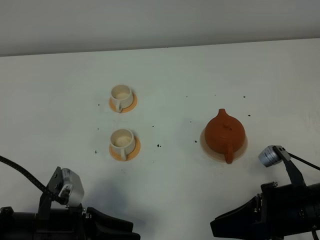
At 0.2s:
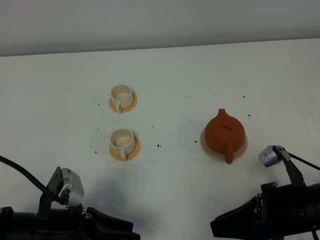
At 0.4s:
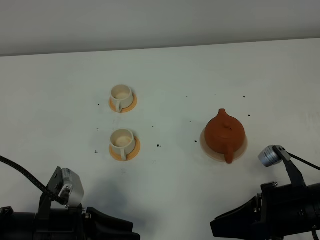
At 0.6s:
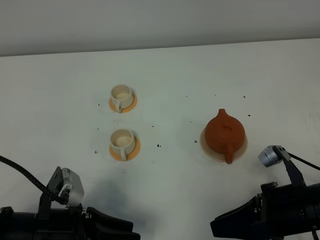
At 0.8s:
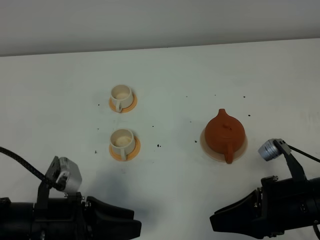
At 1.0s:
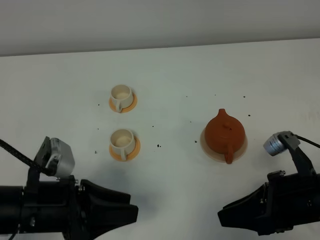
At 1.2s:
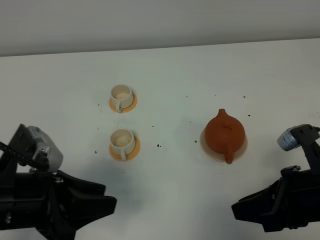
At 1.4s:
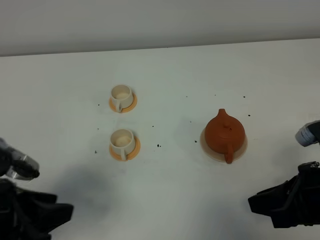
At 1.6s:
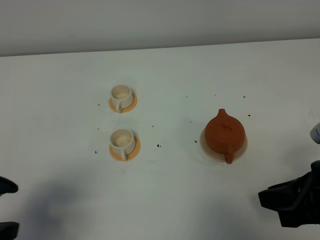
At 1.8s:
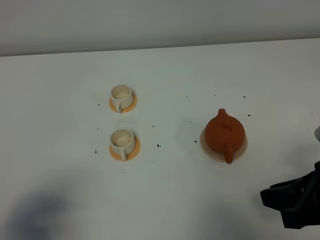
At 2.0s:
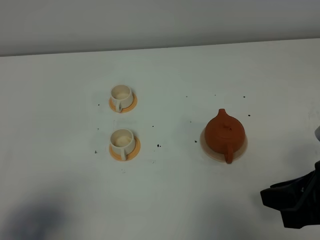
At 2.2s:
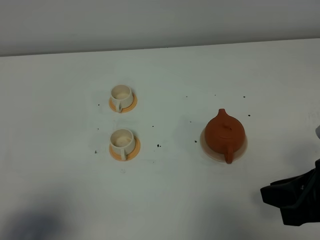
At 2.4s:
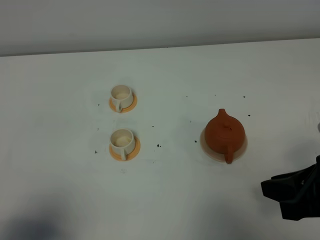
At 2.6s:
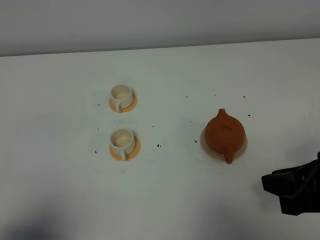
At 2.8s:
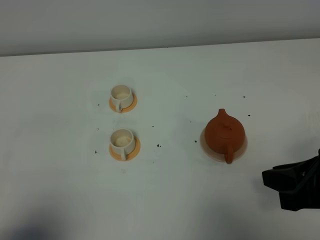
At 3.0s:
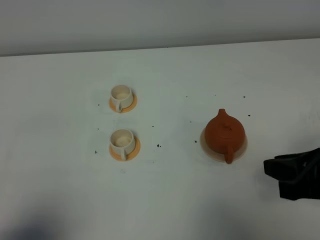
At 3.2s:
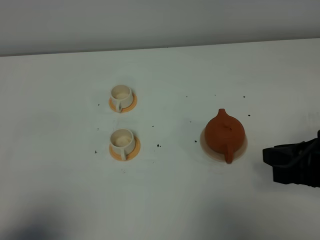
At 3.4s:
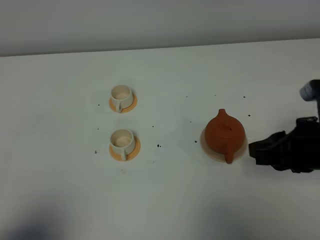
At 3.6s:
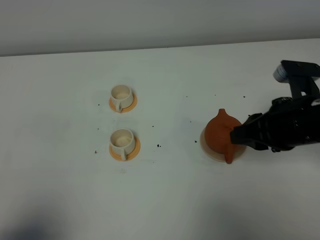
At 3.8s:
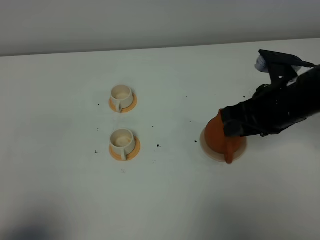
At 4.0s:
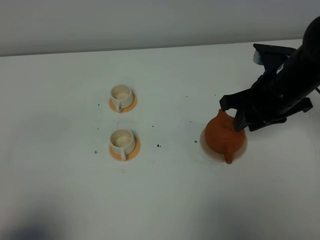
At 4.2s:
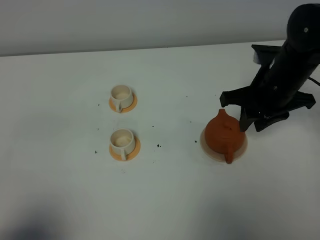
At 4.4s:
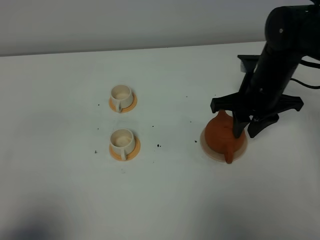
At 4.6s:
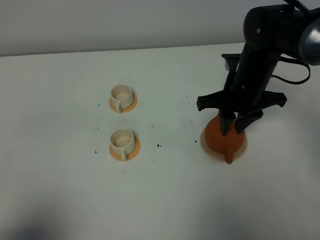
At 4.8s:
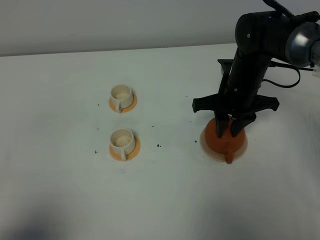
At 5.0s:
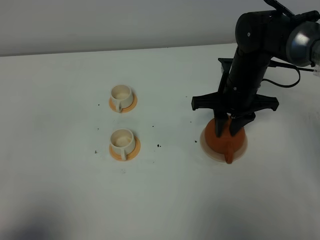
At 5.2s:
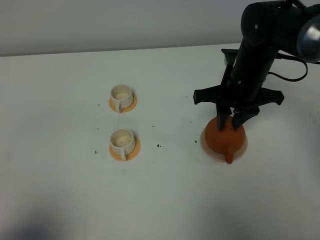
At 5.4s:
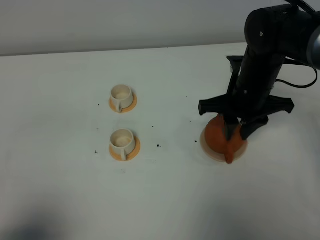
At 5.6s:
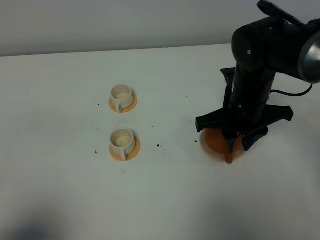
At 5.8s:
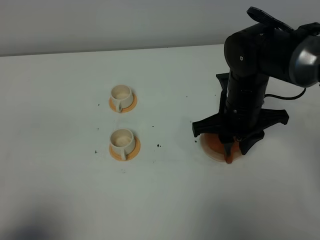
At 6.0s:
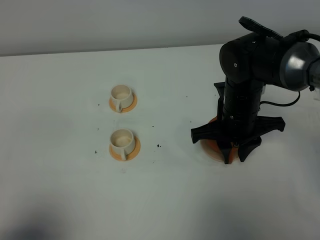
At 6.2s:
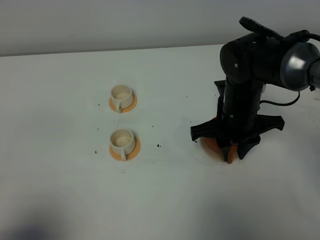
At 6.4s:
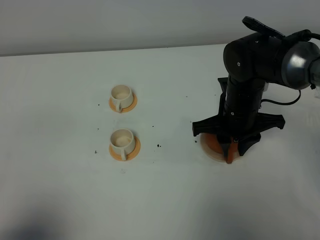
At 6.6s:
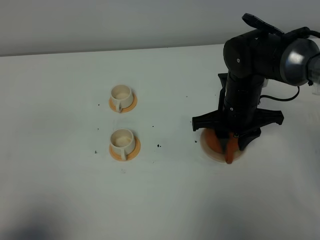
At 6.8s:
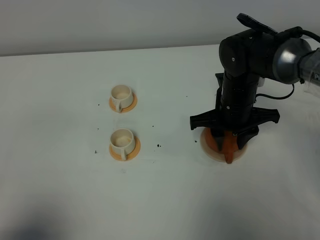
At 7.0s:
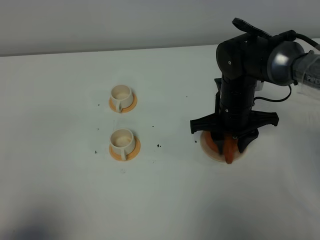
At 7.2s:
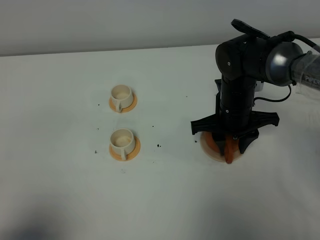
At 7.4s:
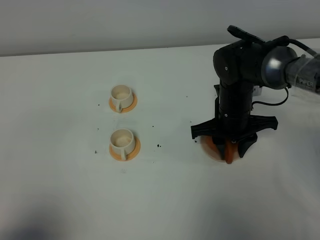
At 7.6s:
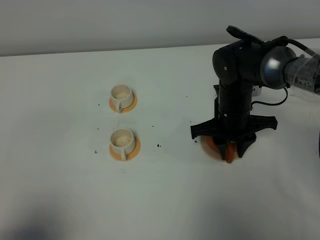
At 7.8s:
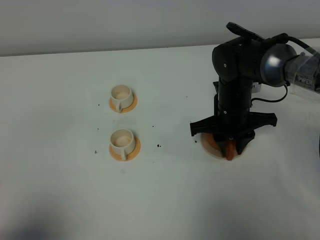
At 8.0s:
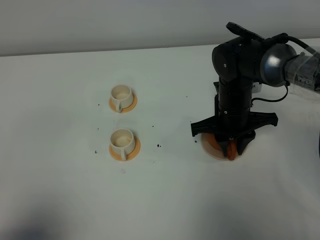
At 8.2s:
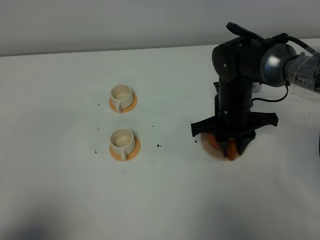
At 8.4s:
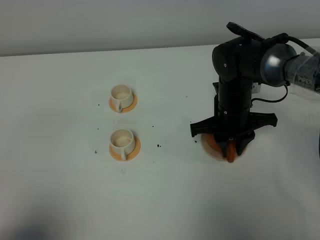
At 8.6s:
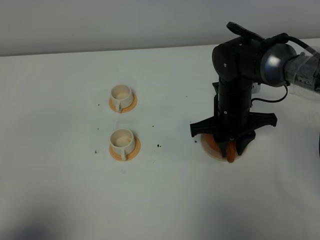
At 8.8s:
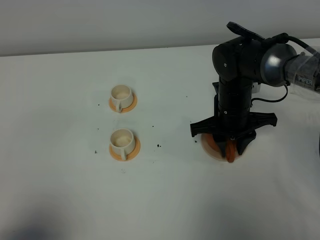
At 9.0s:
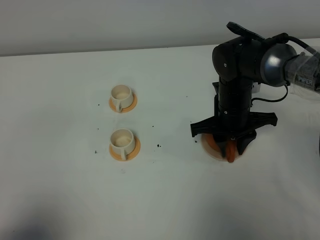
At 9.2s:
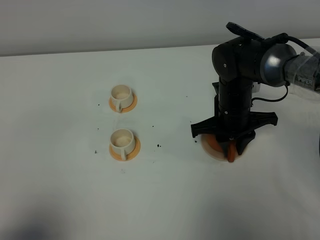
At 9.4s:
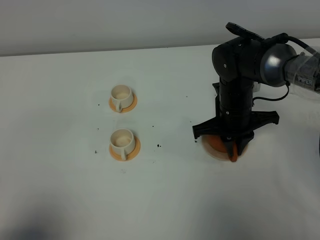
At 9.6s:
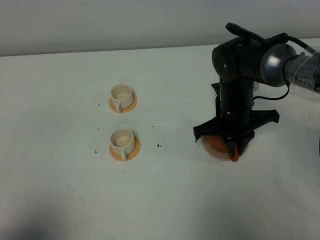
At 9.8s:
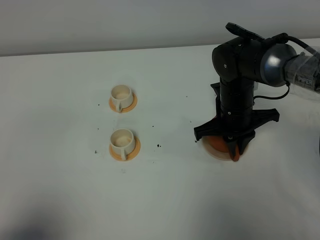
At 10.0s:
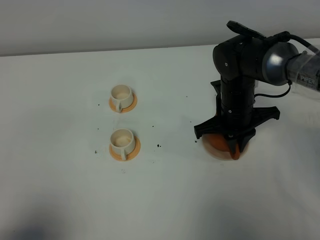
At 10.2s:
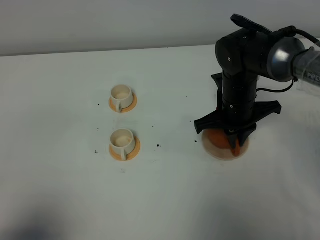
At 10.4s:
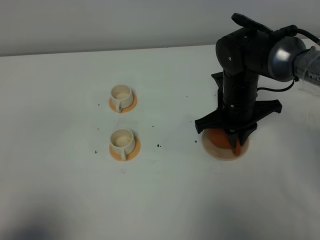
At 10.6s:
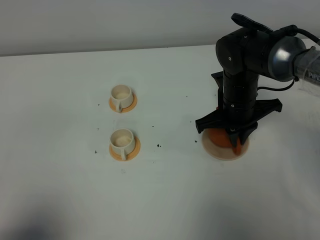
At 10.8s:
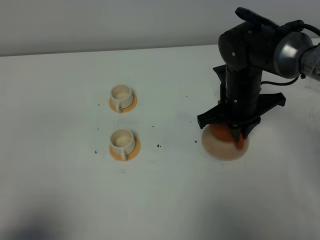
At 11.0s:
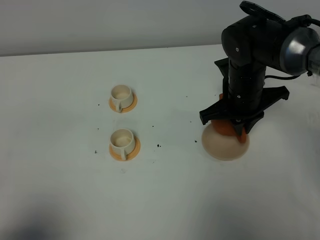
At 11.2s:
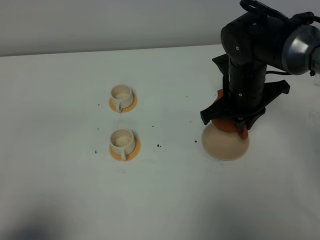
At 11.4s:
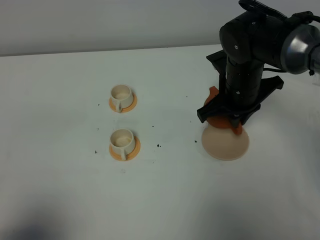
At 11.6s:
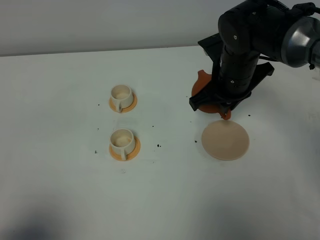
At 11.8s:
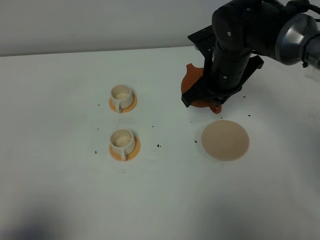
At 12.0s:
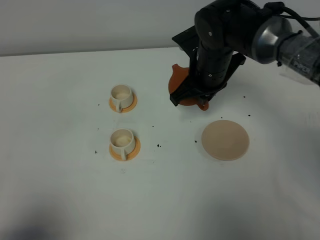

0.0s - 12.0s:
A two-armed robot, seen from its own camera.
Task of the whole recording: grasp the brown teapot and pour the tea into the two white teacups one by one, put the brown teapot back in its original place.
Step, 0.0s - 10.0s: Pick up the teapot with the right gripper.
0.0s - 1.6s: The left gripper travels upward and to the left by about 15 cm. The right gripper travels upward by approximately 5 cm.
1.6s - 3.0s: The left gripper goes roughly 10 cm backward.
3.0s - 4.4s: The right gripper heads forward and to the left, covering approximately 20 cm.
4.4s - 6.0s: The right gripper ends up some 5 cm from where it was.
6.0s - 7.6s: The right gripper changes place by roughly 5 cm.
7.6s - 9.0s: Both grippers stay put.
9.0s - 10.4s: The right gripper closes up.
10.4s - 12.0s: The right gripper moves to the left, approximately 5 cm.

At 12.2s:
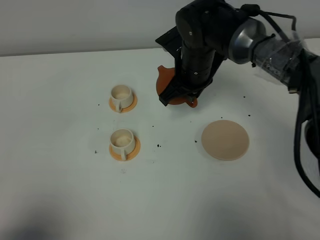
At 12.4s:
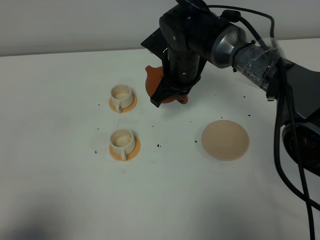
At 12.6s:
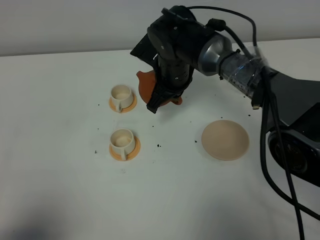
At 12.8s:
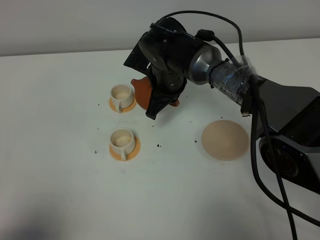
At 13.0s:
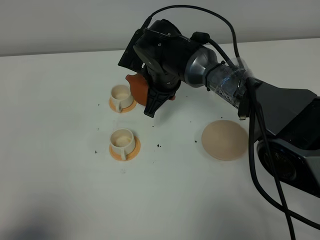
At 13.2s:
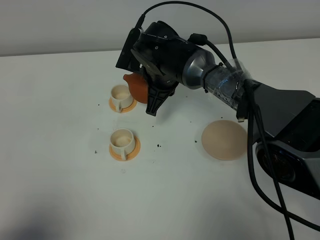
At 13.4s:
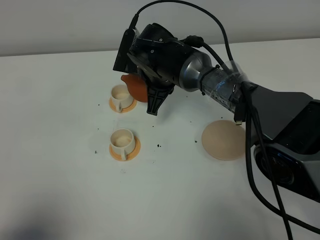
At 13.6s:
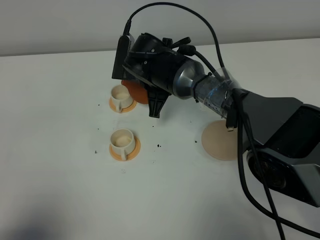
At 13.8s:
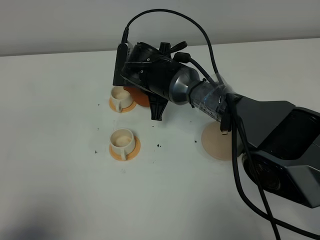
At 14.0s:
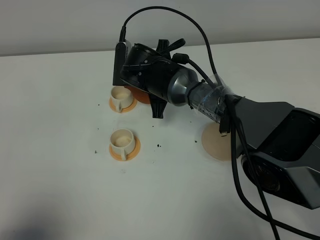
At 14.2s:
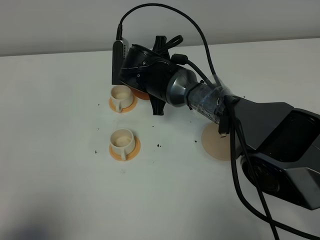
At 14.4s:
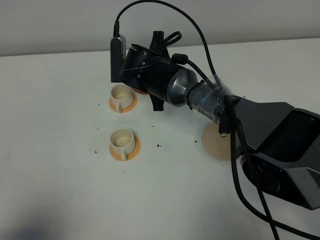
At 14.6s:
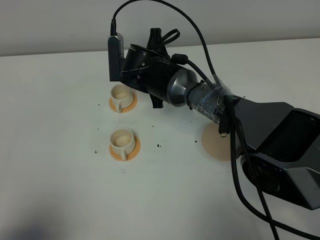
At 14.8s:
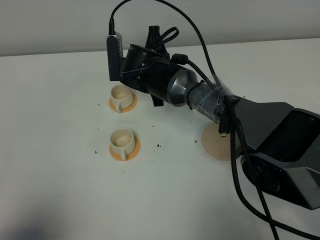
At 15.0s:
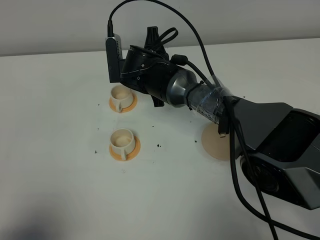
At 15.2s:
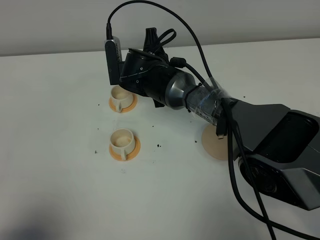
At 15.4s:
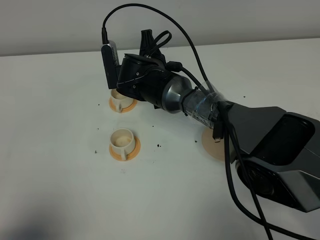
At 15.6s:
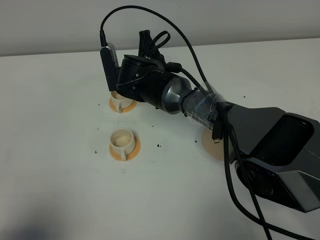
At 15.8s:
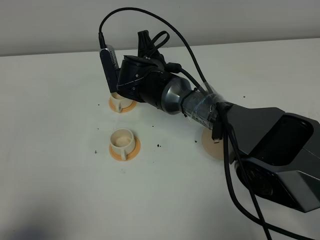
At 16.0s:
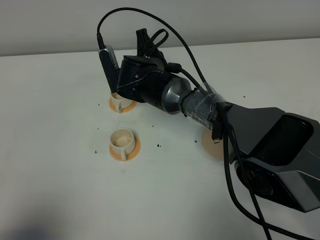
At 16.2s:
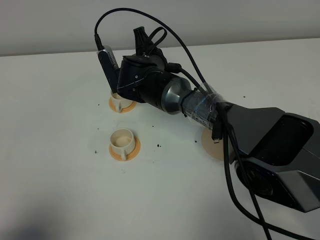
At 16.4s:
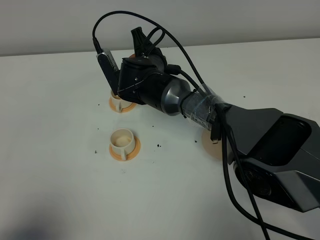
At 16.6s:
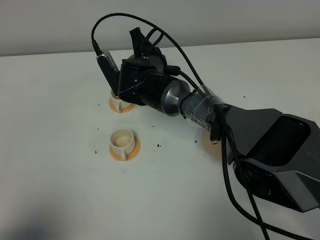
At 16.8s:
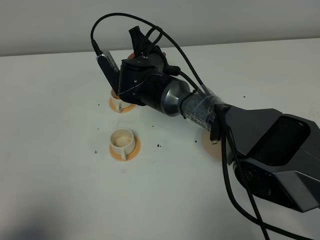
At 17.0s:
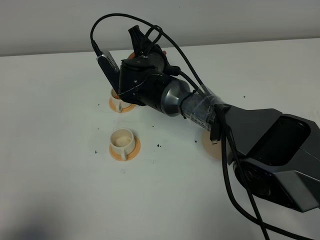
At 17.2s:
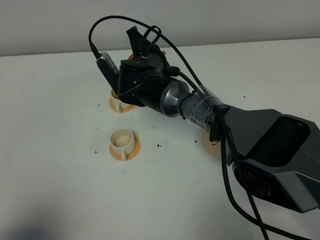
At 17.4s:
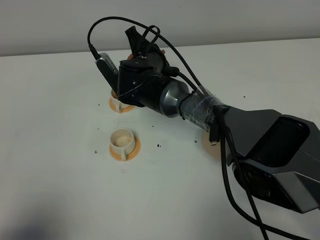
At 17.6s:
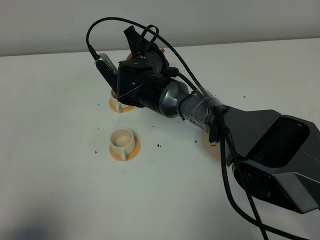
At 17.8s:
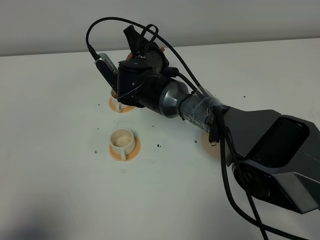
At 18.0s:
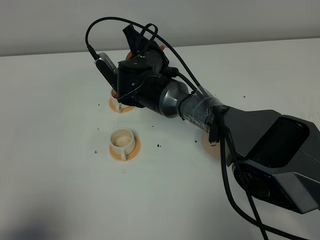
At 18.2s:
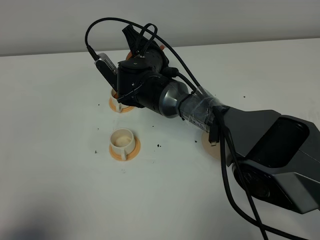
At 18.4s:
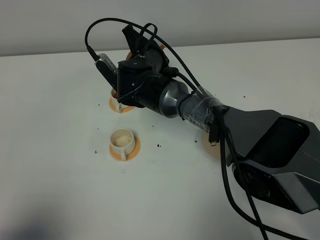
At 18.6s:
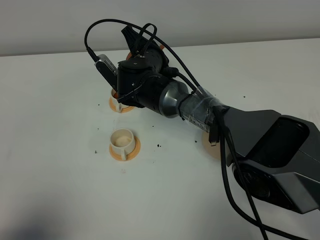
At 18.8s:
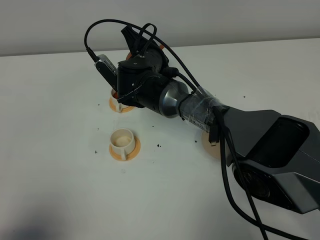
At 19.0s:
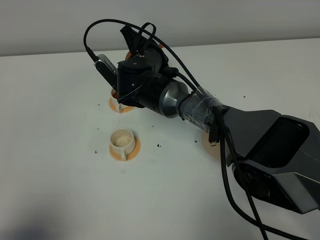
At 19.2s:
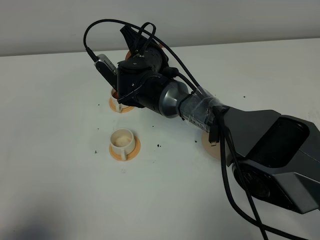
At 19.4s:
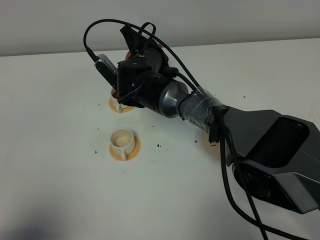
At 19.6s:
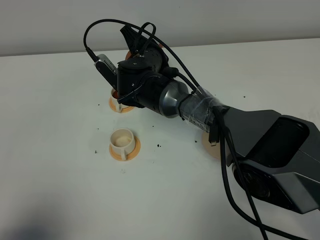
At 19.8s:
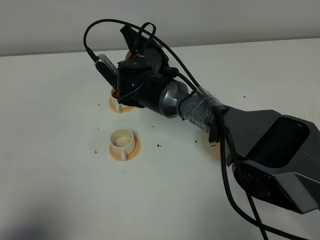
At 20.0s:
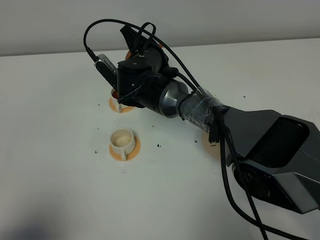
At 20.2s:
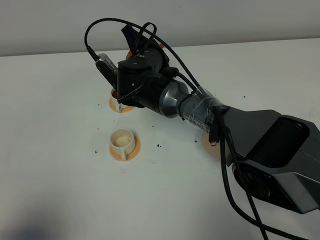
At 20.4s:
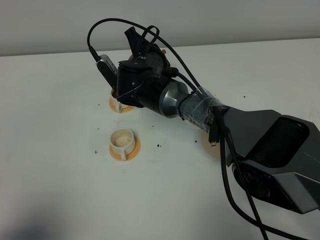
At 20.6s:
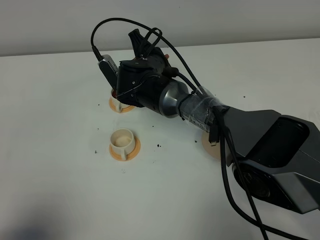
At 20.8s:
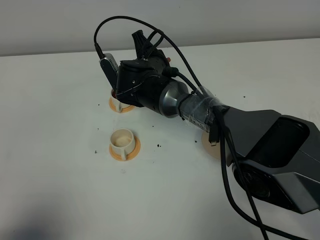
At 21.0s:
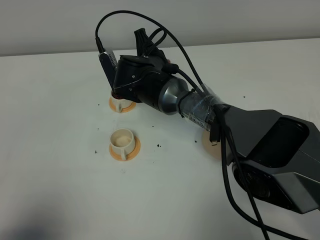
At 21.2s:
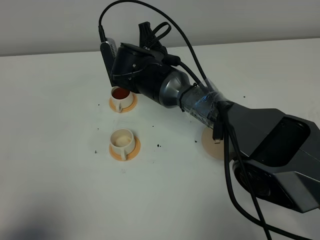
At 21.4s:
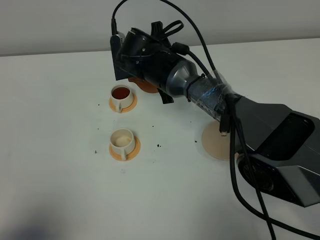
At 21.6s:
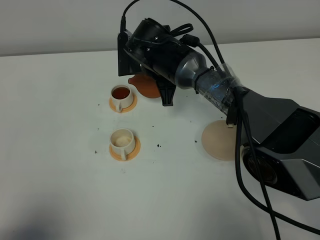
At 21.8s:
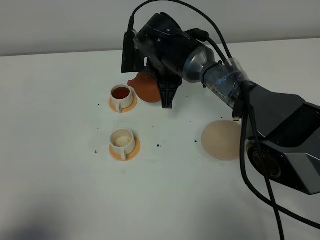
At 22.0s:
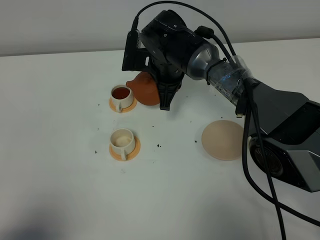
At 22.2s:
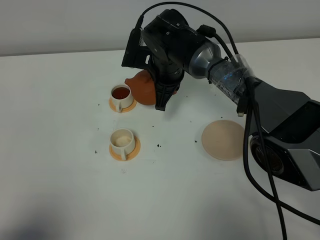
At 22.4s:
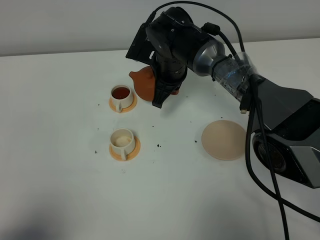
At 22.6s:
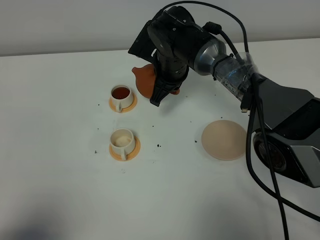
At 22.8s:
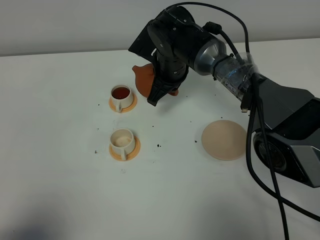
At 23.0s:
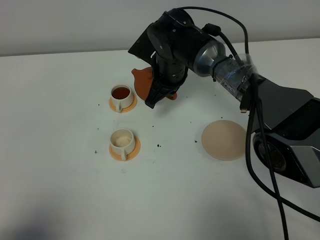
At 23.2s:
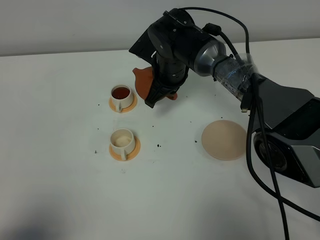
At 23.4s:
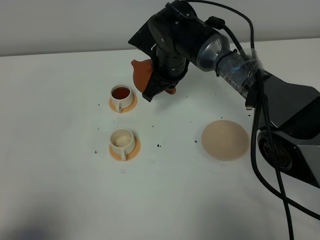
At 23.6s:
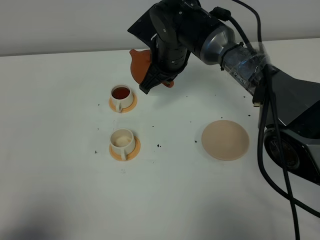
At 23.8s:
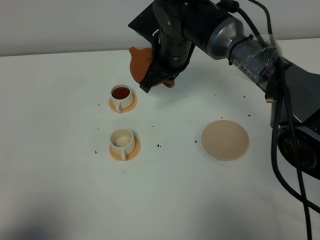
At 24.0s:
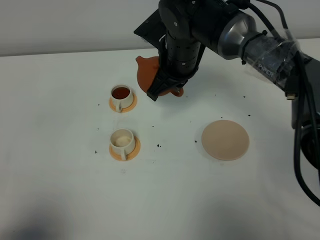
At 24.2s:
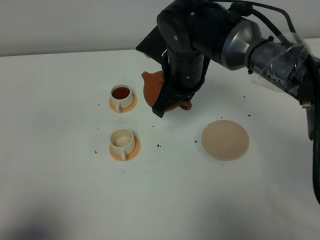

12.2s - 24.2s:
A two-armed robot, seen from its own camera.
Task of the whole recording: grasp the brown teapot and pour the tea into the two white teacups one by one, put the brown teapot back in its original place.
Step, 12.2s - 21.2s: Pour tea into the teacup with the right gripper.
12.2s - 13.8s: The right gripper is displaced to the left by some 5 cm.
13.8s - 15.2s: The grippers move only a little.
16.6s - 18.2s: There are only small adjustments of the grippers.
18.2s - 19.8s: The two grippers keep their place.
21.2s - 22.6s: The right gripper ends up some 5 cm from where it was.
22.6s - 24.2s: The right gripper is displaced backward and upward by about 10 cm.
